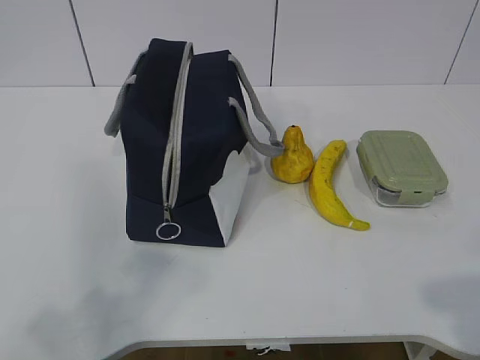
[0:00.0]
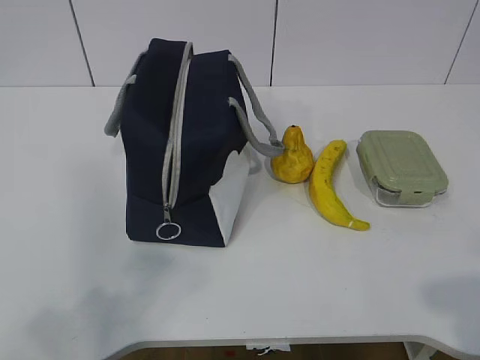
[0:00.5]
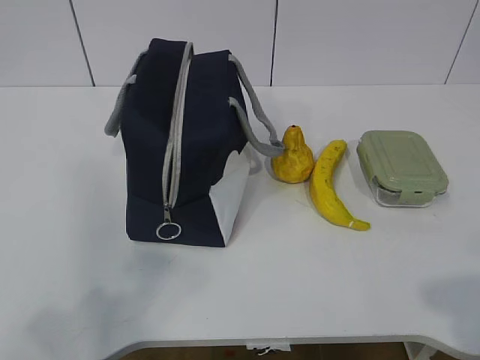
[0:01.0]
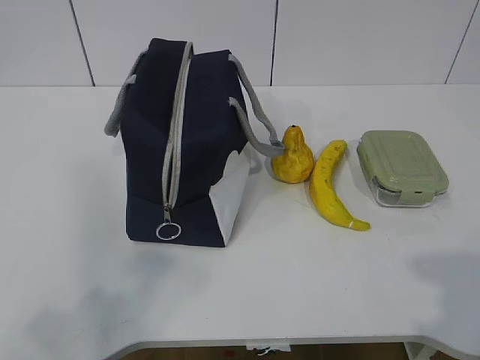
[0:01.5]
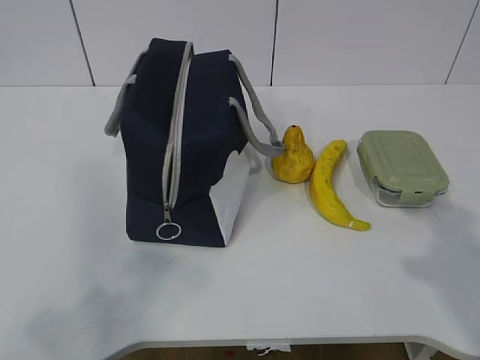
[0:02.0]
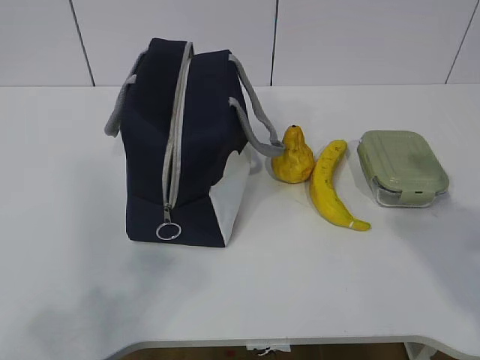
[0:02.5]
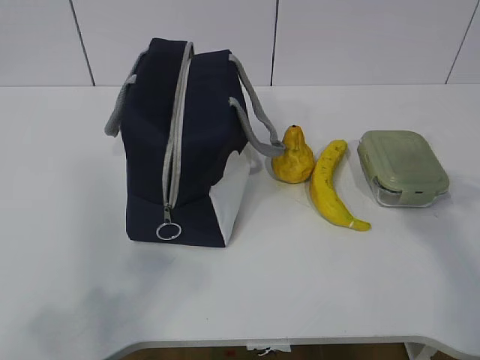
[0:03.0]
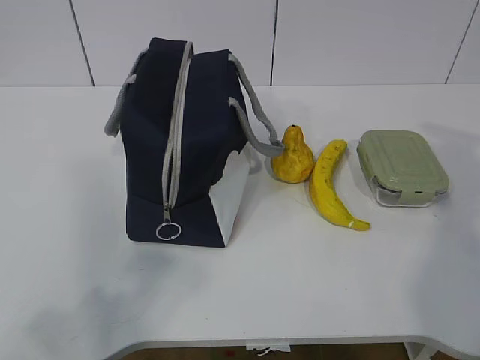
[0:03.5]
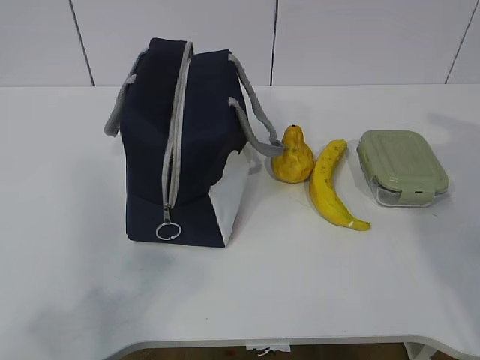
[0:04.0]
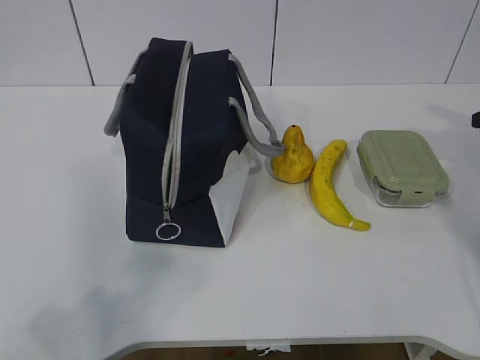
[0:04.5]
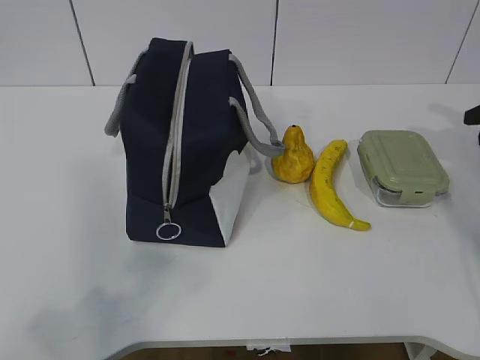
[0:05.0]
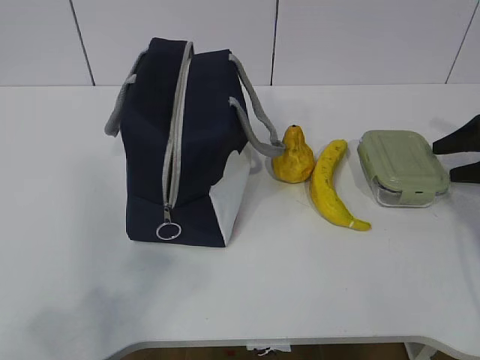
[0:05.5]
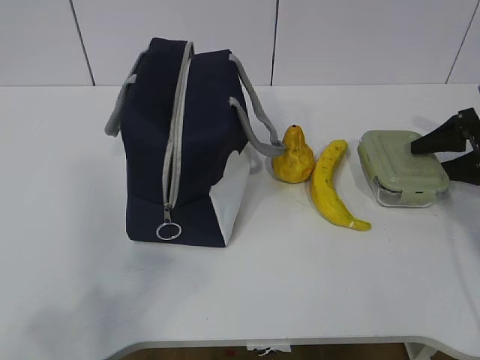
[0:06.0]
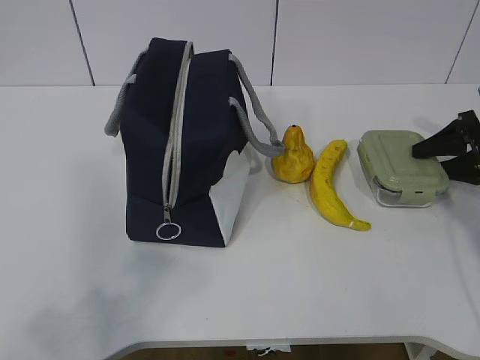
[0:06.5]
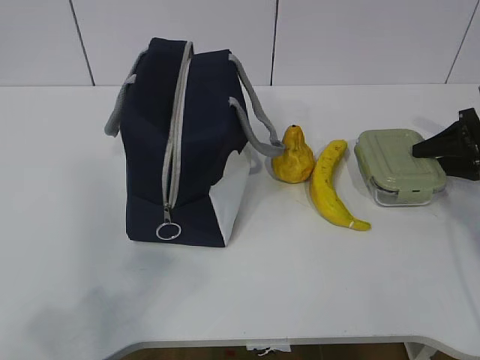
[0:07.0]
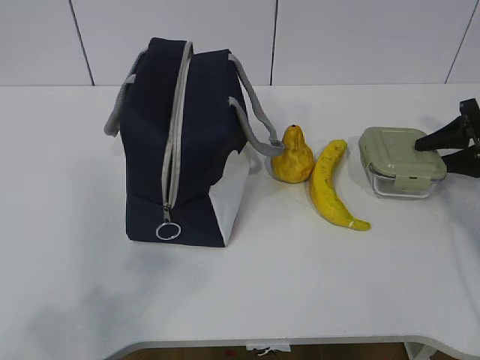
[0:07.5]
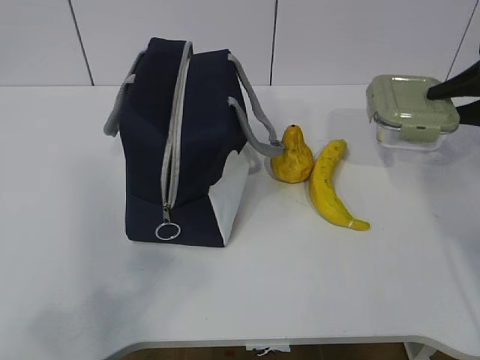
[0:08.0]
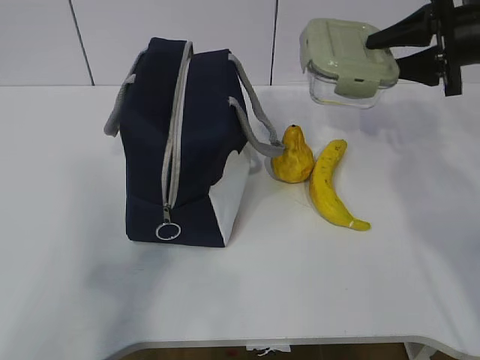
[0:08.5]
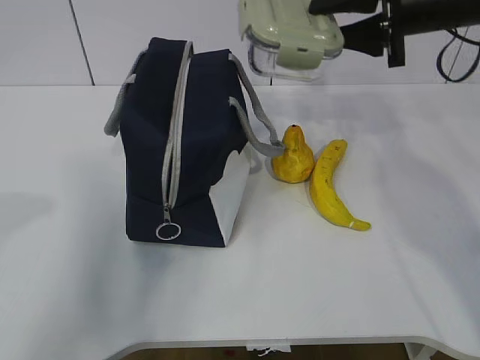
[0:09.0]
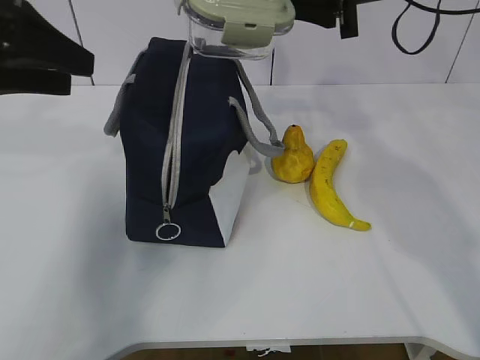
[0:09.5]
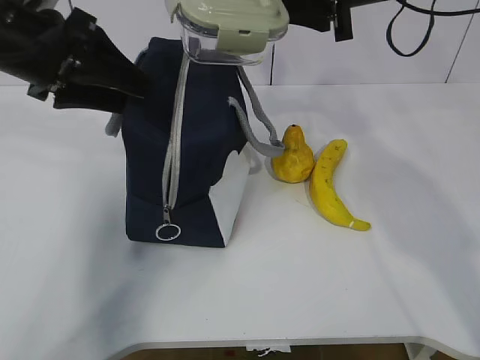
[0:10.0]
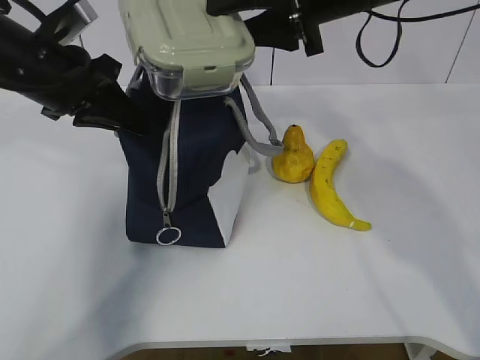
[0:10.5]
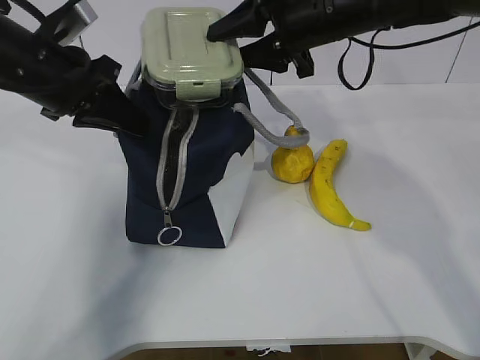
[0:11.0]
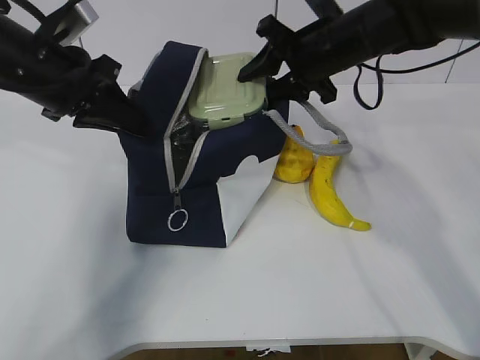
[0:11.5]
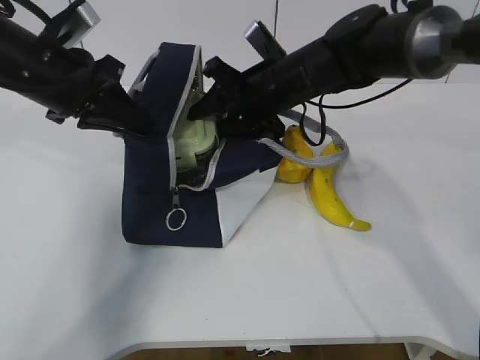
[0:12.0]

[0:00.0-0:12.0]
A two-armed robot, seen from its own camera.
Step, 0:00.0 to 0:06.0: Grab the lunch box with your right hand.
Step, 0:06.5 to 0:08.5: Grab the lunch bag with your left hand.
Step, 0:09.5 to 0:10.5: Place it into the bag with your right hand.
0:04.0 to 0:06.0: The right gripper goes roughly 15 cm downward and forward, and opens up.
0:06.0 to 0:08.0: The right gripper shifts some 10 cm upward, and closes its fingers.
0:08.0 to 0:10.0: The right gripper travels to the left and upward by approximately 25 cm. Meanwhile the left gripper is displaced forward by about 35 cm, and opens.
0:10.0 to 0:12.0: The left gripper closes up. Meanwhile the right gripper shifts some 15 cm downward and to the left.

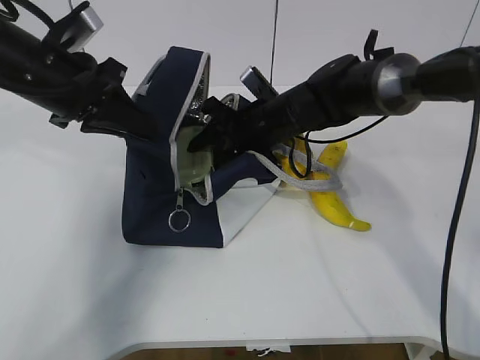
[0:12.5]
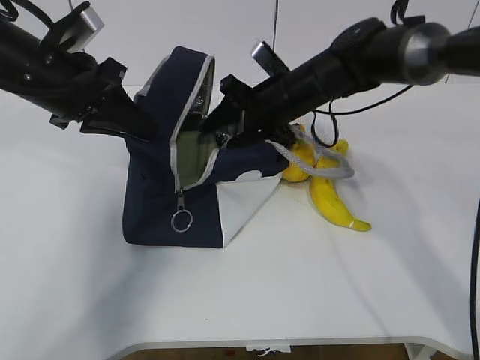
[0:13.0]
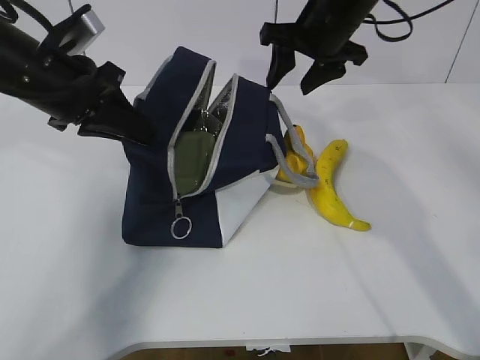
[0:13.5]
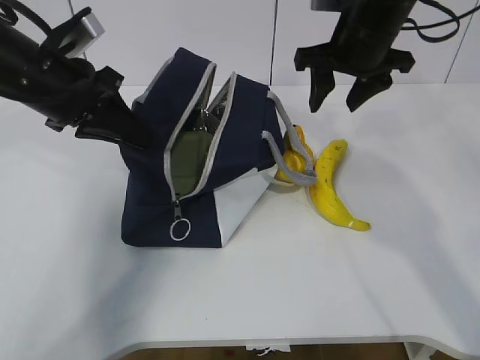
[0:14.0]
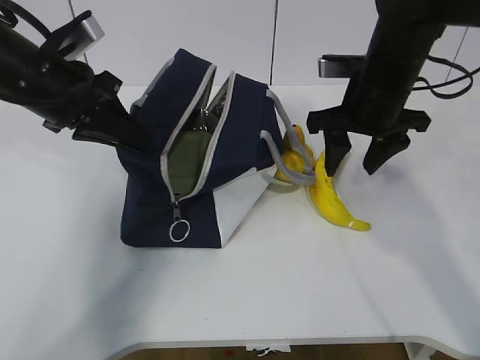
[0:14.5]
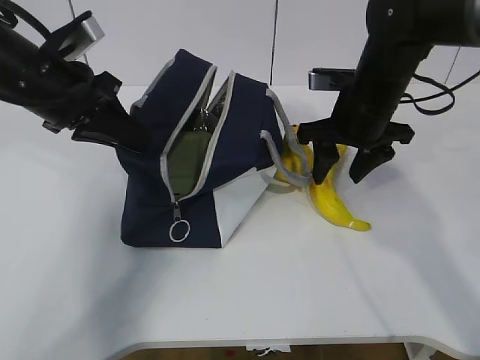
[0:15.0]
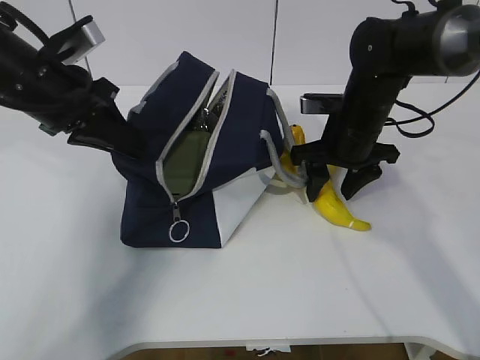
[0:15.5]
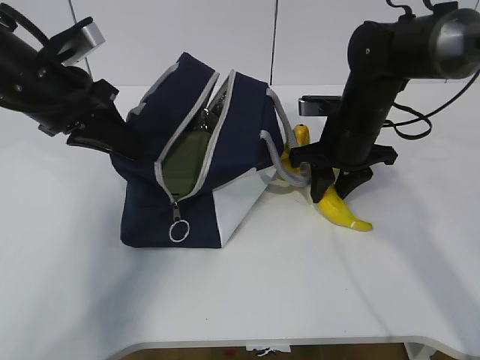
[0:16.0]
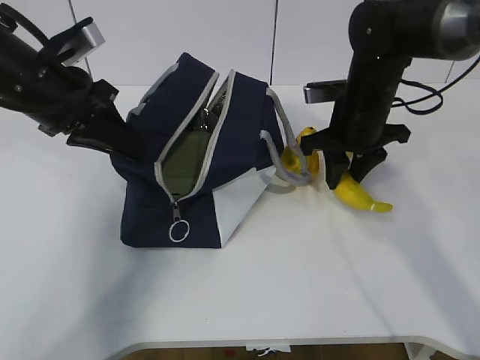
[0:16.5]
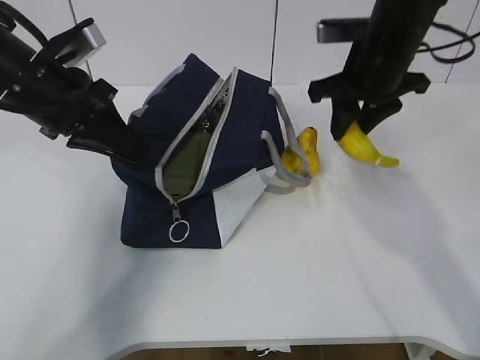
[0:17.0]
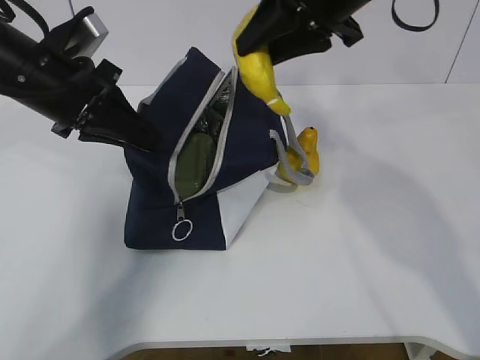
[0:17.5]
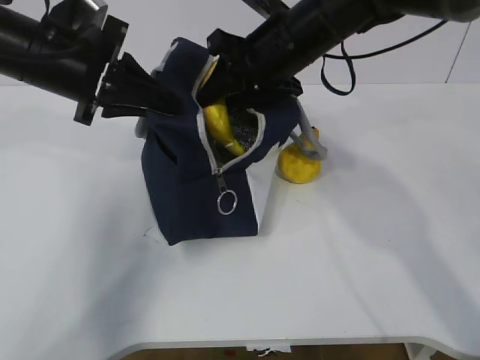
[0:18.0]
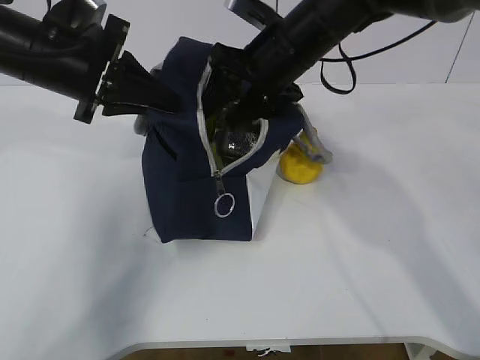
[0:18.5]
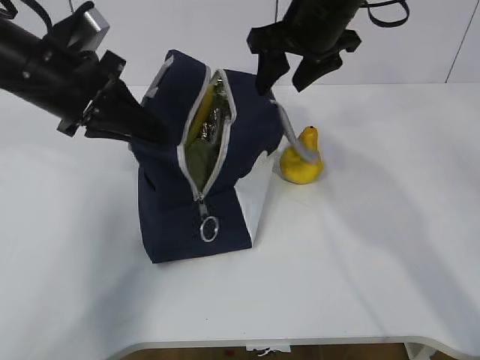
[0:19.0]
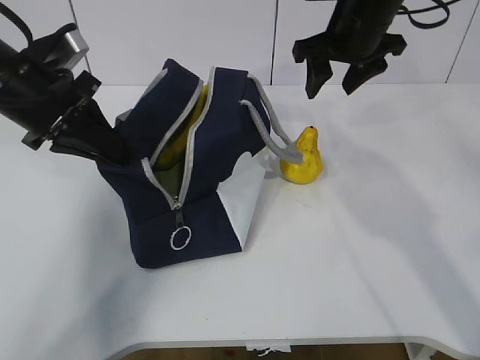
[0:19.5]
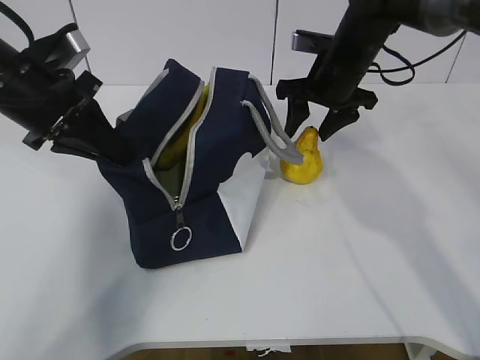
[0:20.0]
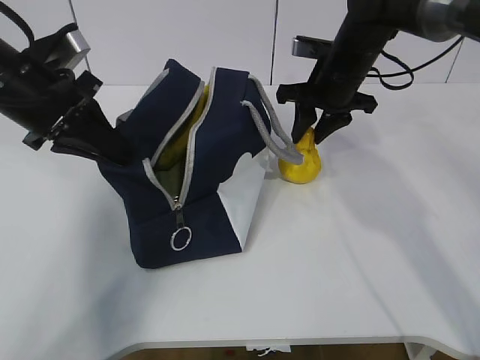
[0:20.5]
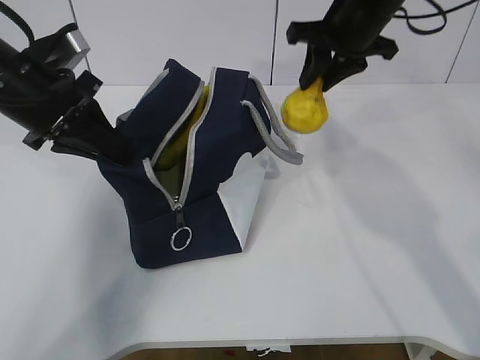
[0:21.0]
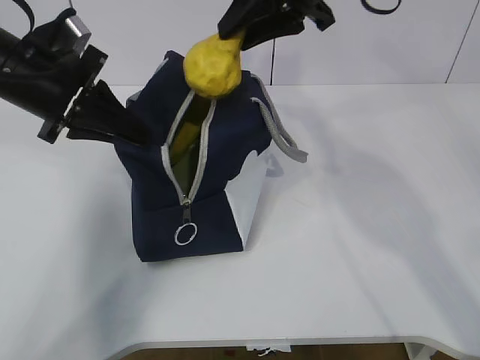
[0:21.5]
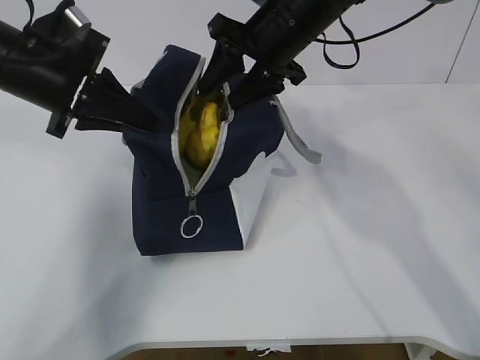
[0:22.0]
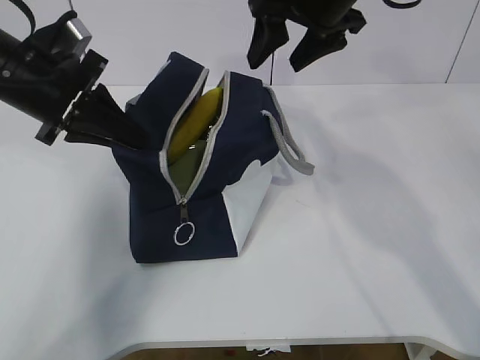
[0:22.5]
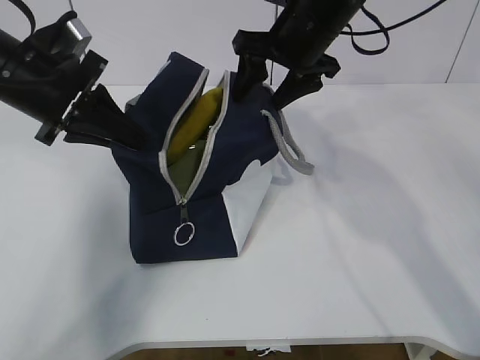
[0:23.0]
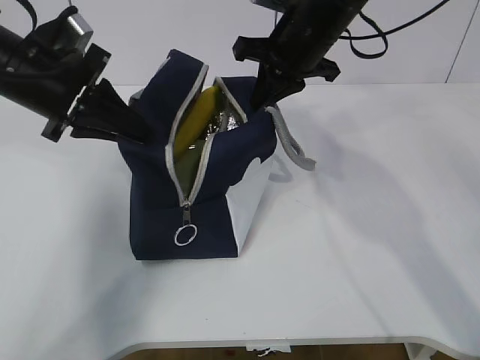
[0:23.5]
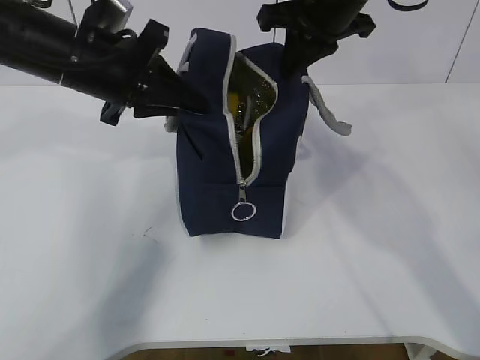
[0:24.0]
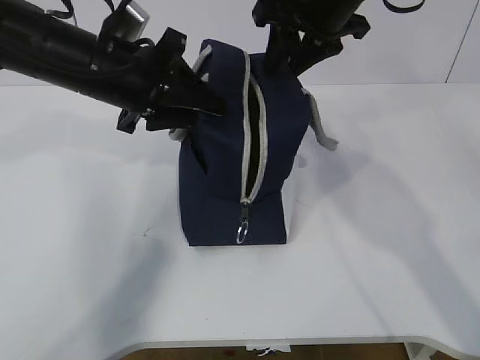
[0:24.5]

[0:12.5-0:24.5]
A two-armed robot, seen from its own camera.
Step, 0:14.0 to 0:15.0: Place it into the bag with your right hand.
Step, 0:15.5 to 0:17.0: Grab the pear with your right hand.
Step, 0:17.5 to 0:18.0: Secure the lunch bag with your left hand.
Step, 0:18.5 to 0:19.0: Grab the lunch bag with your right hand.
Step, 0:19.5 to 0:20.0: Move the lunch bag to the right.
0:12.5 to 0:14.5: The right gripper moves to the right, upward and backward, some 15 cm.
0:16.5 to 0:18.5: The right gripper moves to the left and upward, some 10 cm.
0:18.5 to 0:20.5: The right gripper heads to the right, downward and forward, covering some 10 cm.
0:20.5 to 0:22.5: The right gripper swings up and down, approximately 15 cm each way, with 2 reversals, and opens its fingers.
0:22.5 to 0:24.5: The left gripper is displaced to the right by some 5 cm, and opens up, while the right gripper closes up.

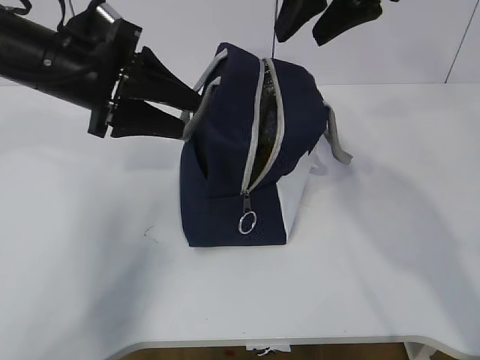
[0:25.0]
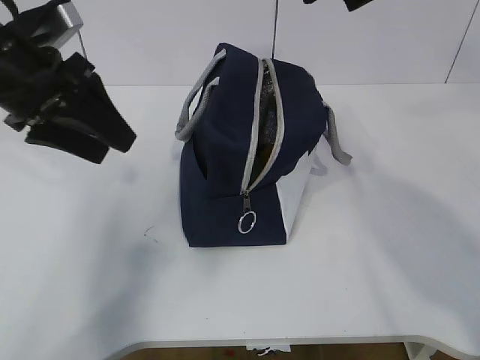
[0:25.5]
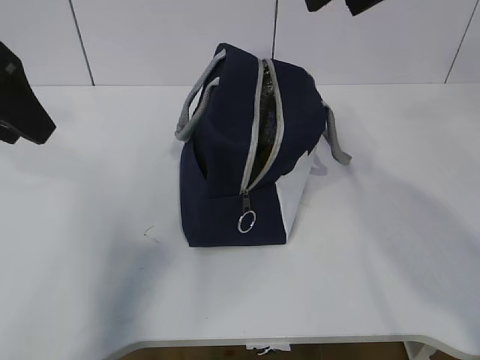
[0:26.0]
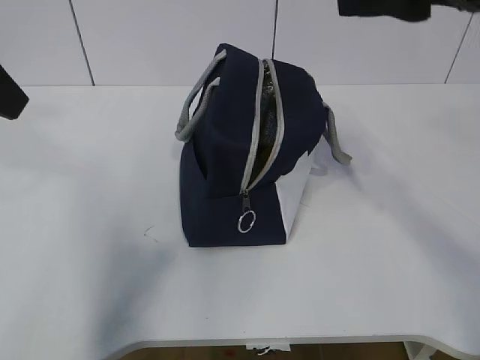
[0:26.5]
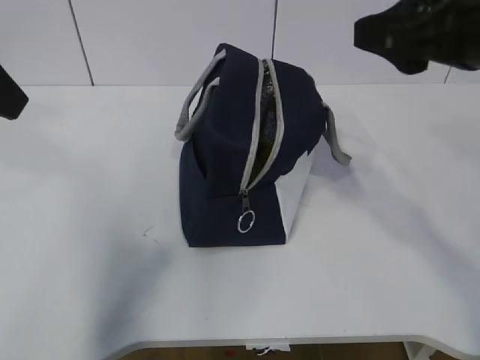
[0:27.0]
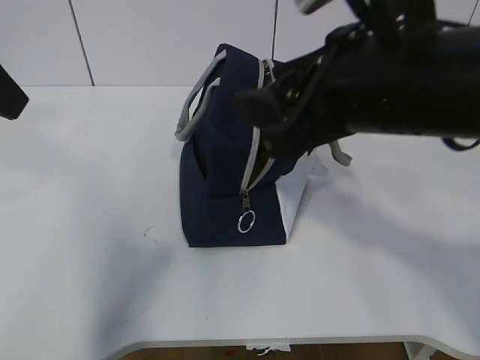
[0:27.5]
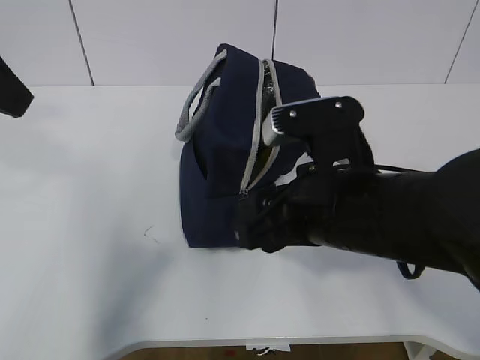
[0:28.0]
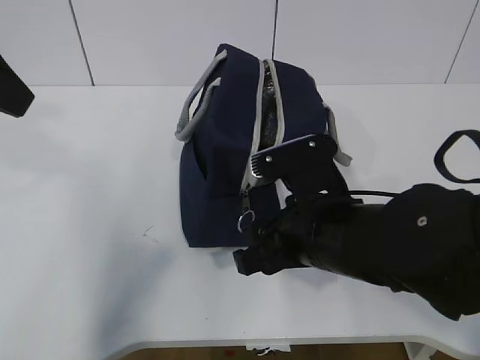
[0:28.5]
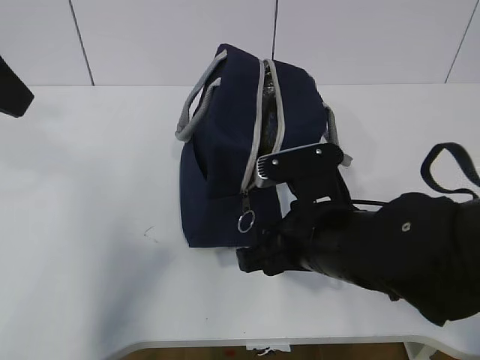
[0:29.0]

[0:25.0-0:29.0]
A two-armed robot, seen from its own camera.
0:25.0 to 0:27.0: The left gripper heads upward, backward and to the left, covering some 15 cm. The right gripper shifts about 15 cm backward.
0:27.0 to 0:29.0: The right gripper travels downward and to the left by some 20 cm.
